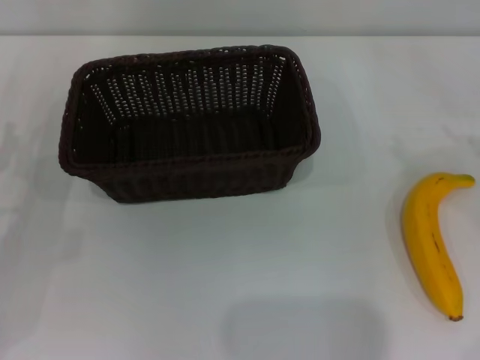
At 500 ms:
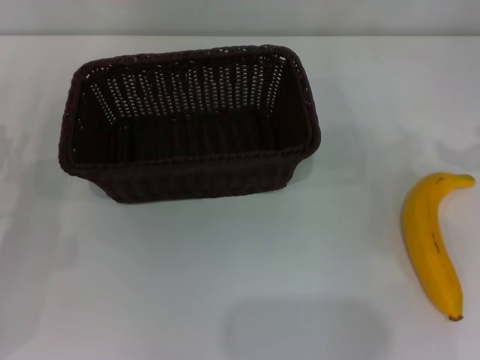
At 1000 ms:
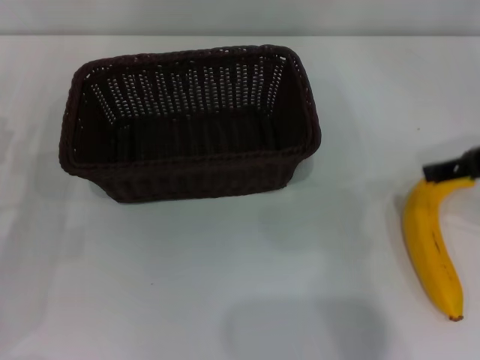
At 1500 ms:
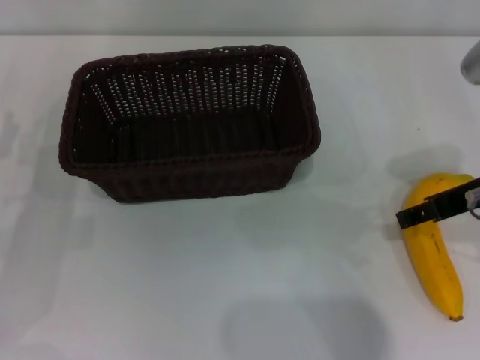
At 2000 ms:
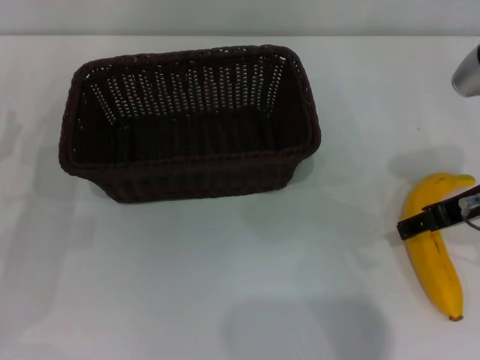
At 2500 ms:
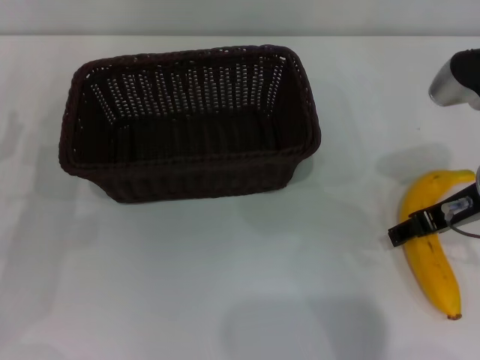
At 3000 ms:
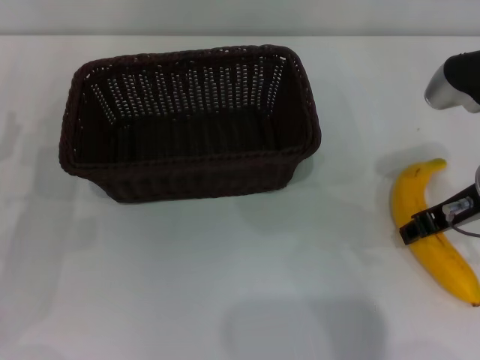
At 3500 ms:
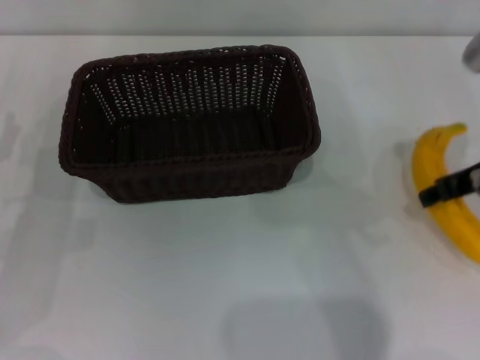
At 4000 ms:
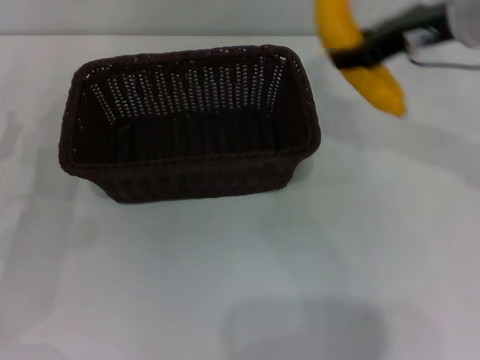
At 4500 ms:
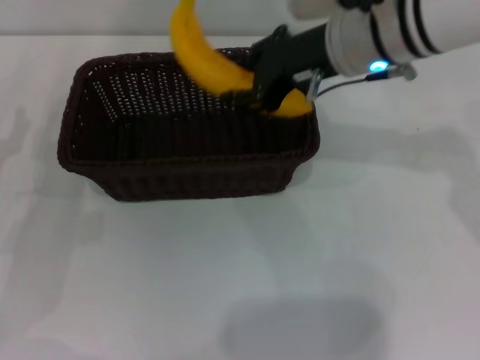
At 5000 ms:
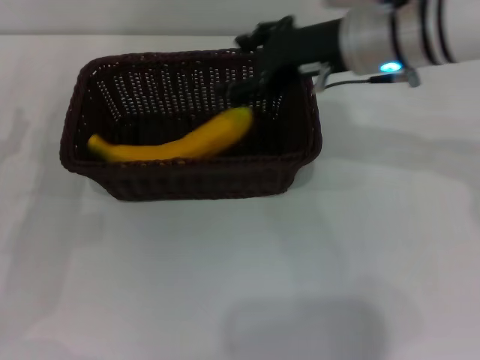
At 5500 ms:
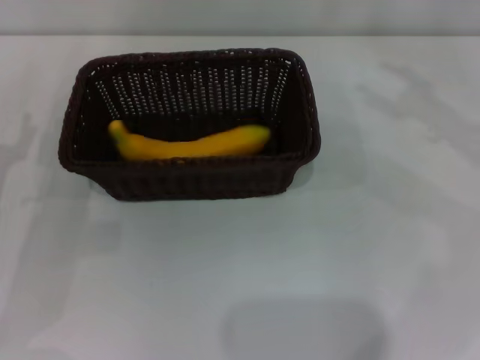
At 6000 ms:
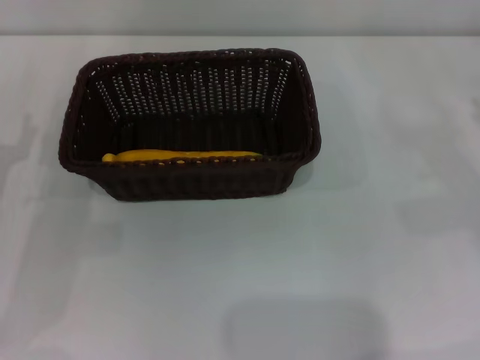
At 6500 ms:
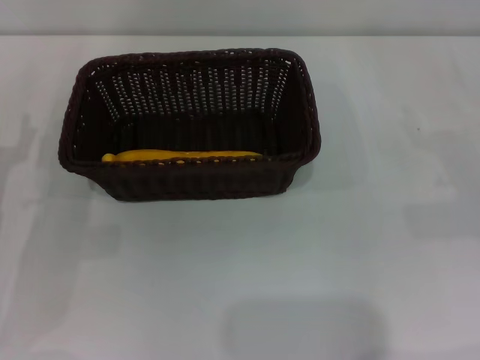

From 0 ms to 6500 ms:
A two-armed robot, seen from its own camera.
Step, from 0 ms to 3000 ms: Pick up the banana with the right gripper.
Step, from 3500 ms to 4500 ms: Place the banana into the dark basket with the right gripper.
From 0 ms to 2000 ms: The right gripper moves to the left, some 20 cm.
From 2000 ms to 4500 ms: The right gripper moves to the left and forward, some 15 cm, and closes up.
From 4500 ms to 6500 ms: The right gripper is displaced to the right and downward by some 30 cm, and opens.
